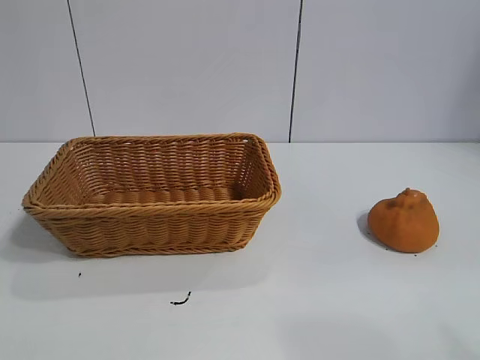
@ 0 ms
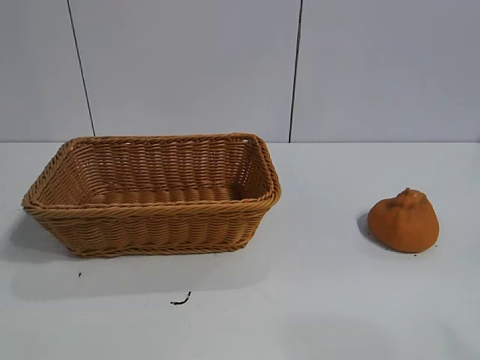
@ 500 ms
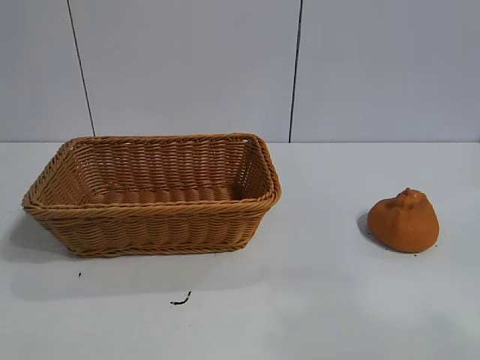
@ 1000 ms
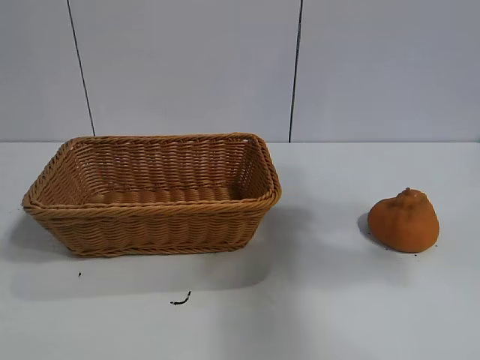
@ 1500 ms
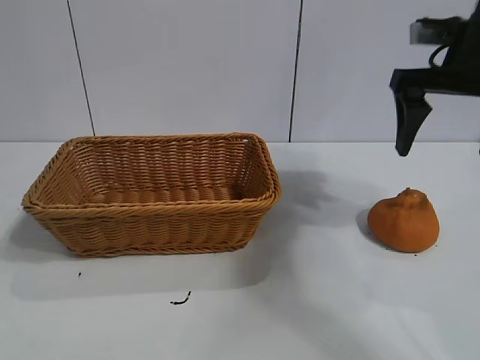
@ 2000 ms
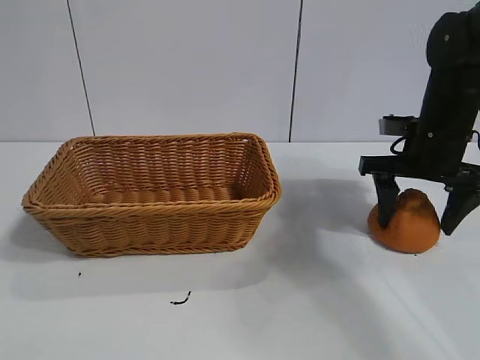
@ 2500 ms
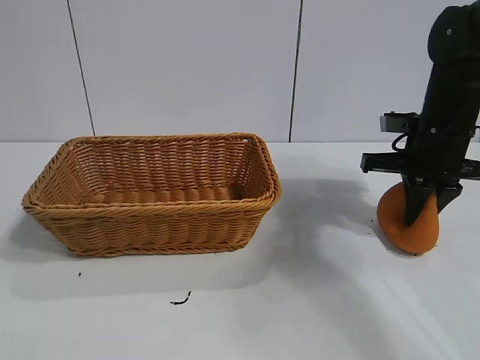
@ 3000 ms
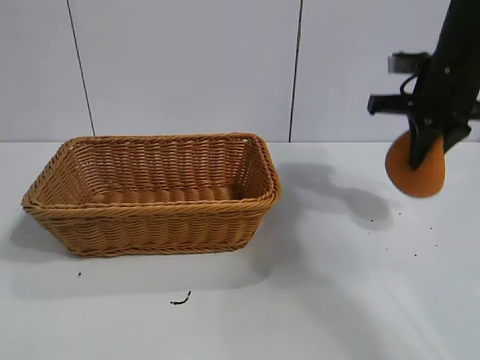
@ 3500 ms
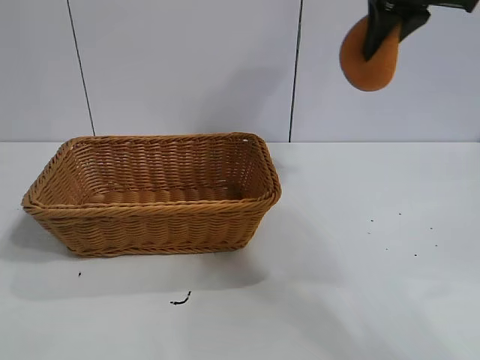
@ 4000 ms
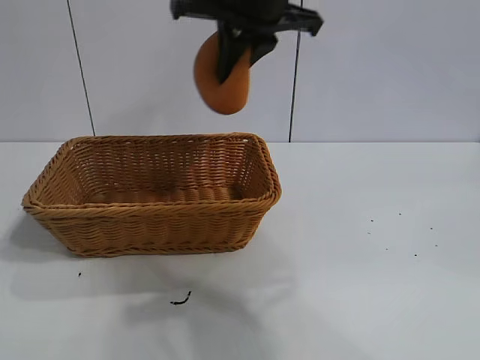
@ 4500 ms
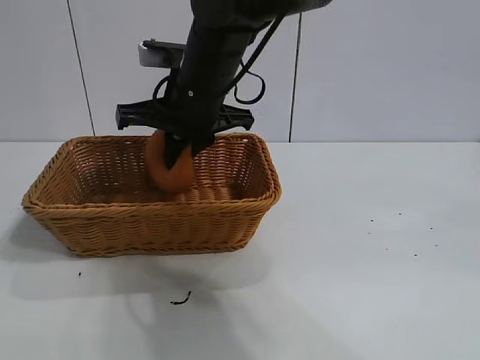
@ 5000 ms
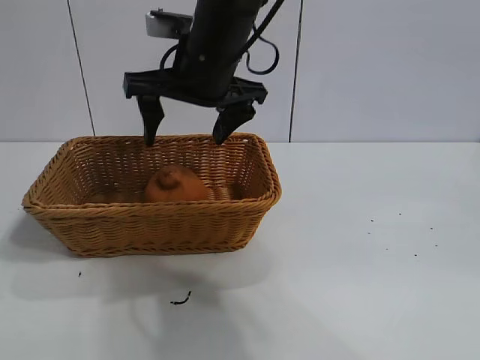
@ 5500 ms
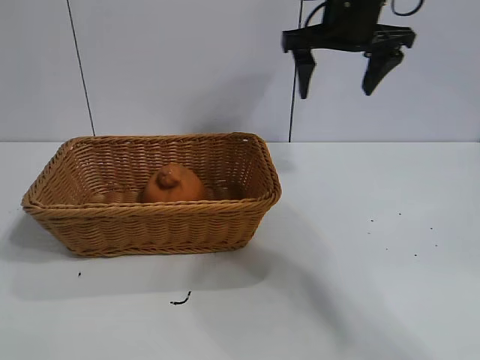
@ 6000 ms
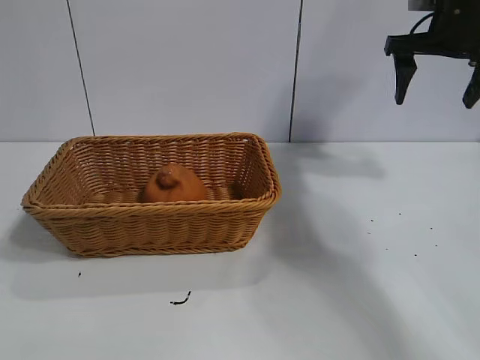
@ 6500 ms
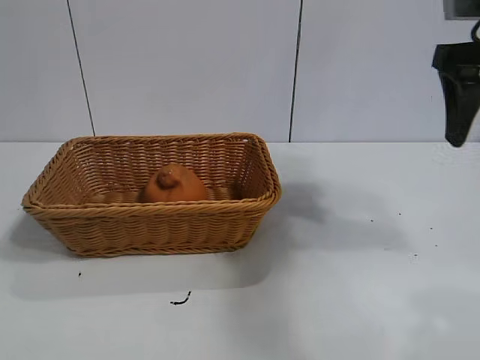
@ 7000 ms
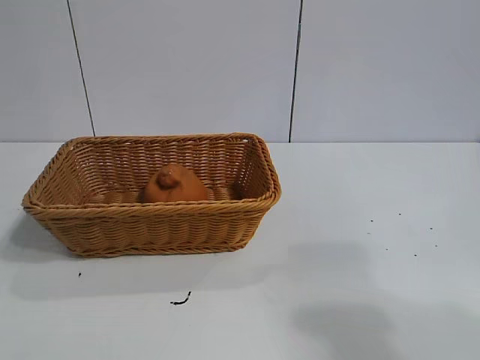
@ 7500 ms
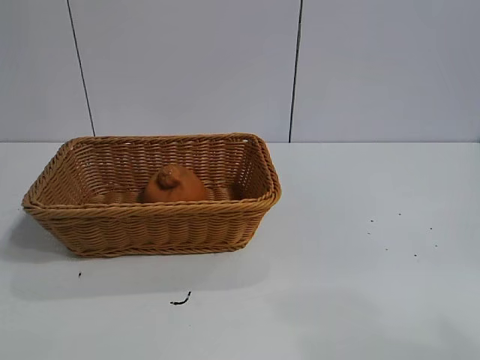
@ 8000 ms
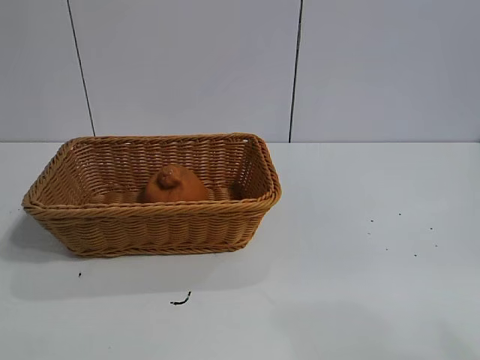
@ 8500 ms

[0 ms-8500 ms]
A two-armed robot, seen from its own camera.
Task of the whole recording: pick up the orange and put it into the basket.
Step, 1000 ms to 2500 ms: Grasp the orange with right gripper.
Step, 3000 ms to 5000 ms: Place the orange in the basket with right gripper.
